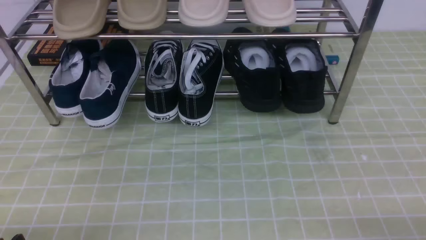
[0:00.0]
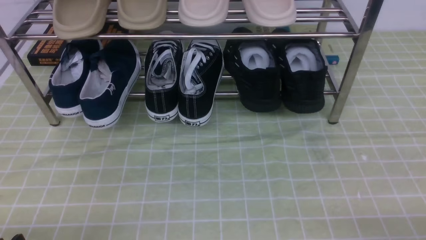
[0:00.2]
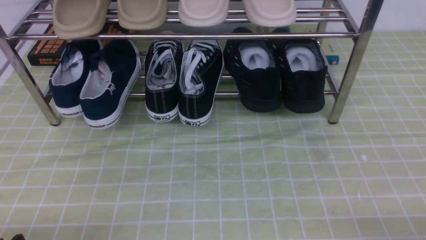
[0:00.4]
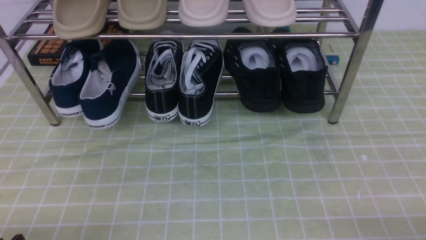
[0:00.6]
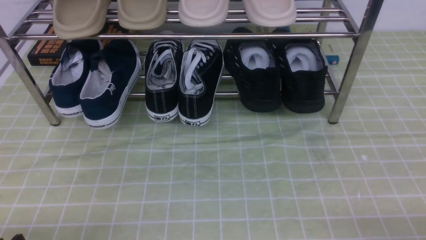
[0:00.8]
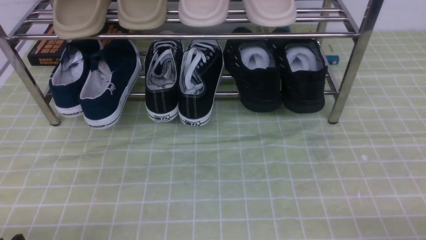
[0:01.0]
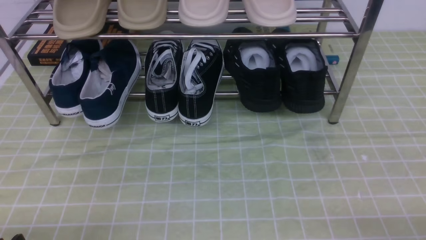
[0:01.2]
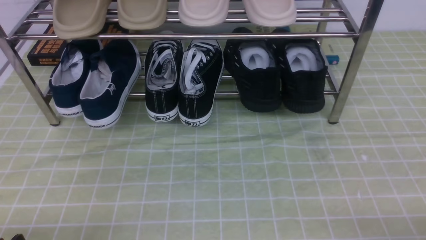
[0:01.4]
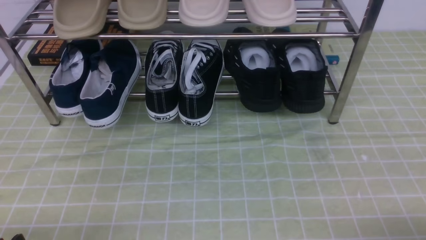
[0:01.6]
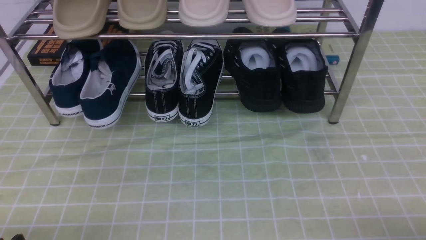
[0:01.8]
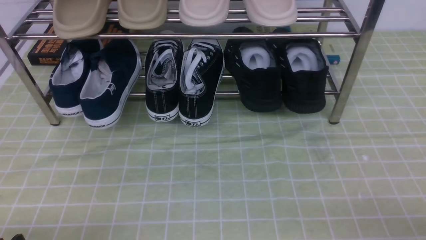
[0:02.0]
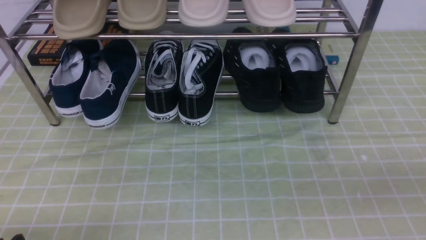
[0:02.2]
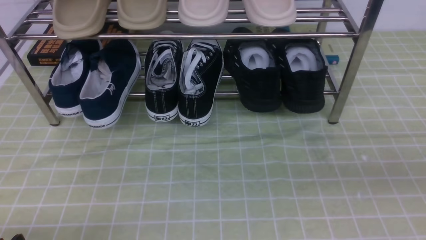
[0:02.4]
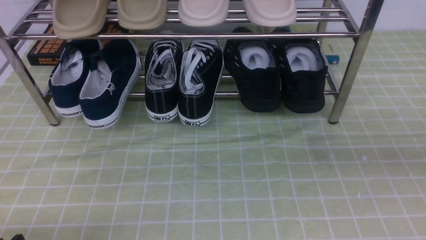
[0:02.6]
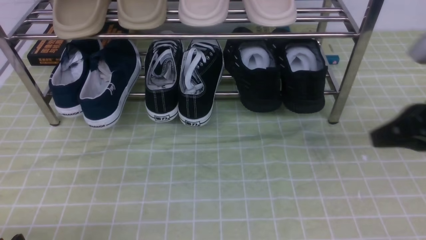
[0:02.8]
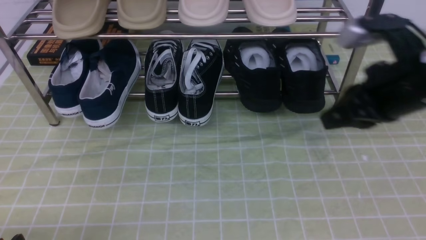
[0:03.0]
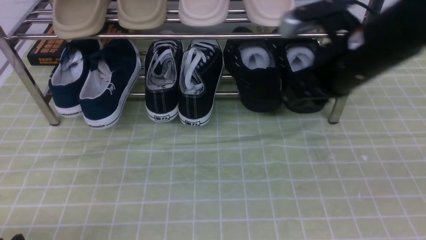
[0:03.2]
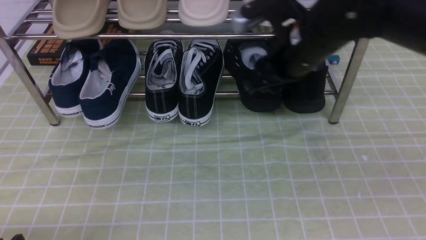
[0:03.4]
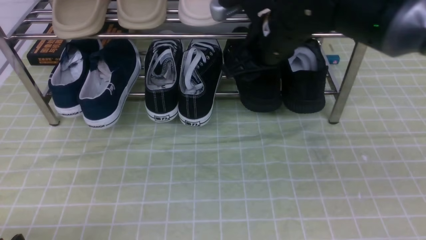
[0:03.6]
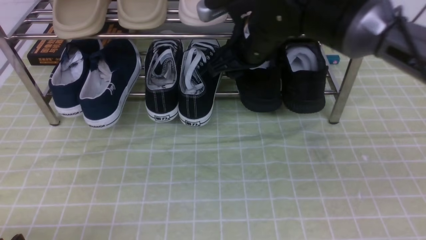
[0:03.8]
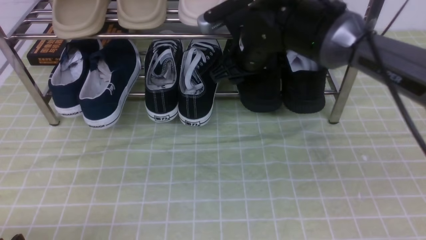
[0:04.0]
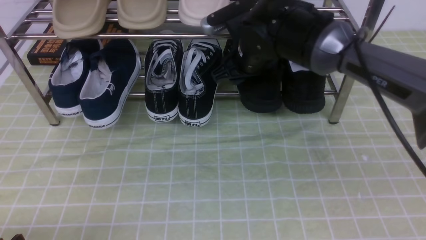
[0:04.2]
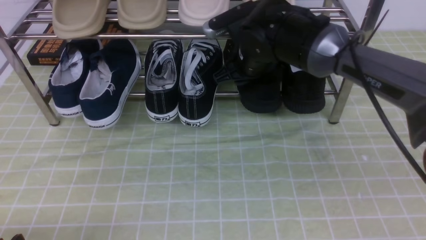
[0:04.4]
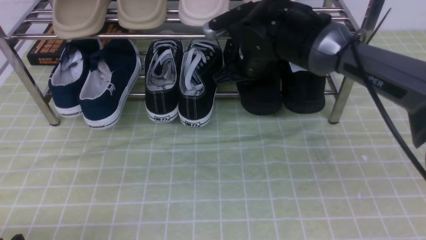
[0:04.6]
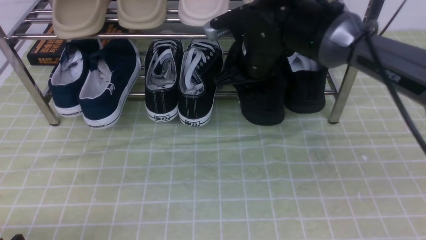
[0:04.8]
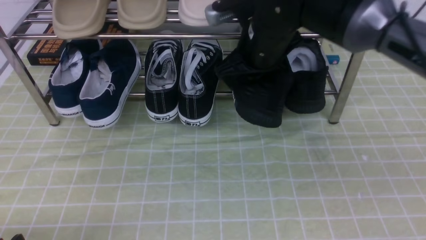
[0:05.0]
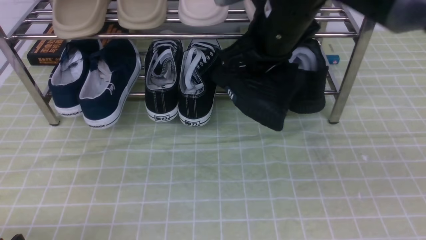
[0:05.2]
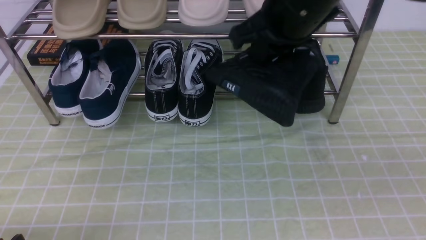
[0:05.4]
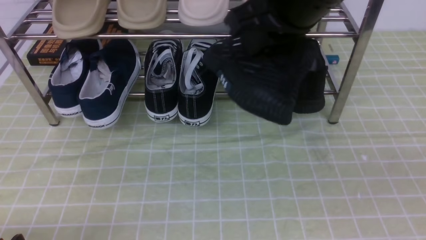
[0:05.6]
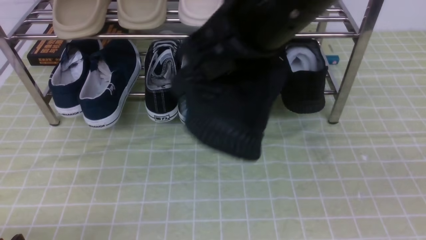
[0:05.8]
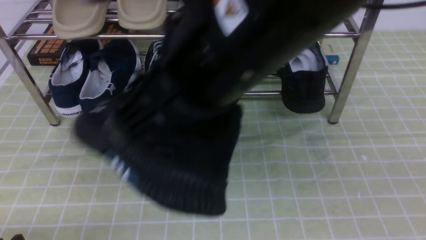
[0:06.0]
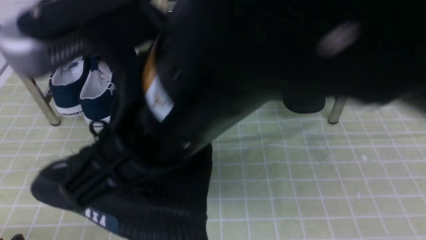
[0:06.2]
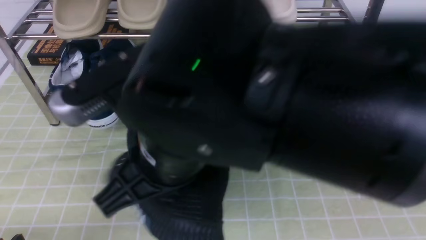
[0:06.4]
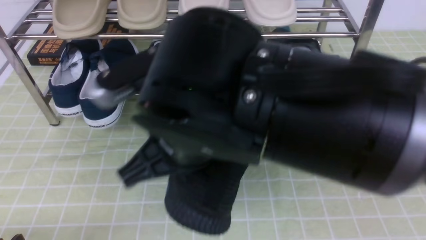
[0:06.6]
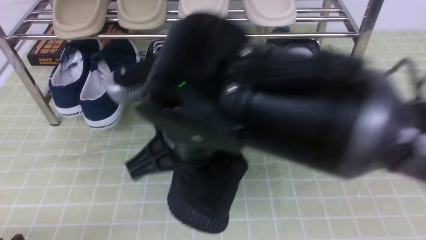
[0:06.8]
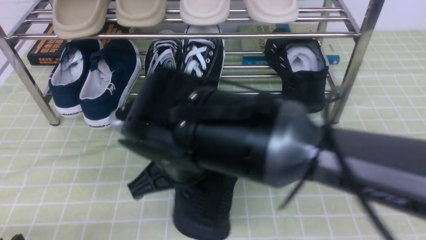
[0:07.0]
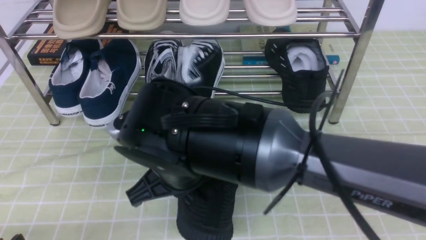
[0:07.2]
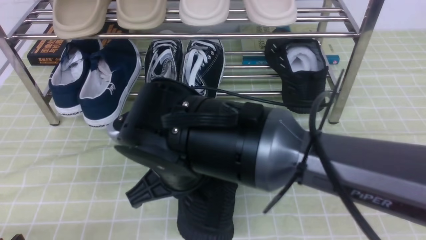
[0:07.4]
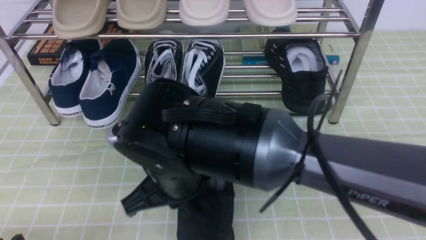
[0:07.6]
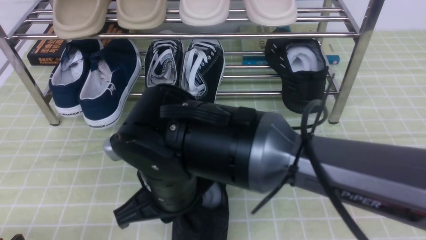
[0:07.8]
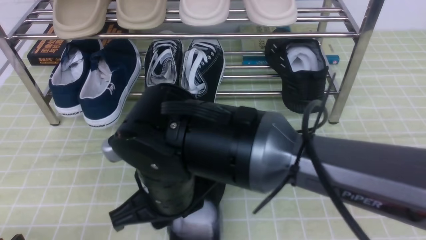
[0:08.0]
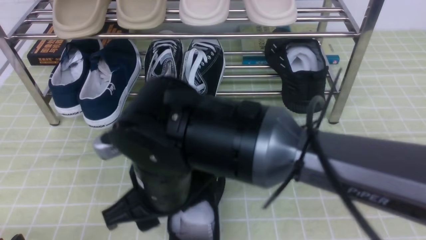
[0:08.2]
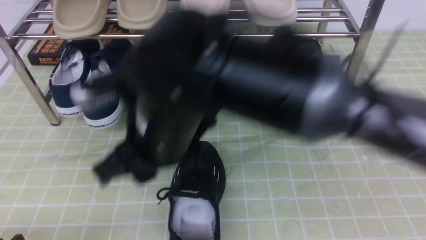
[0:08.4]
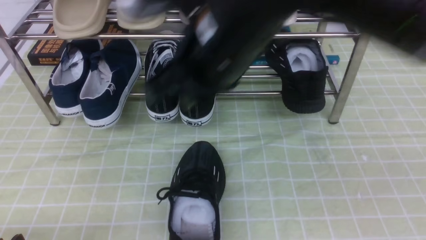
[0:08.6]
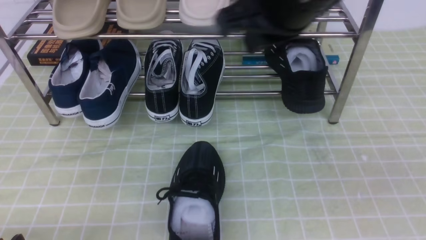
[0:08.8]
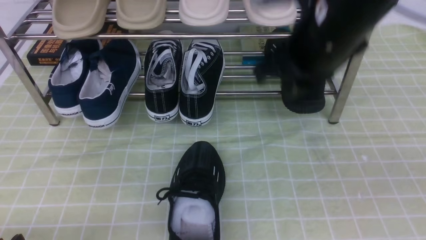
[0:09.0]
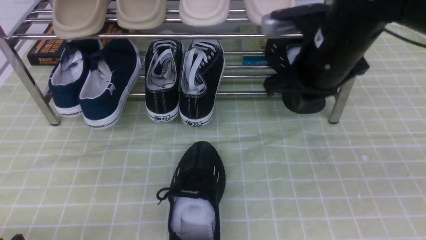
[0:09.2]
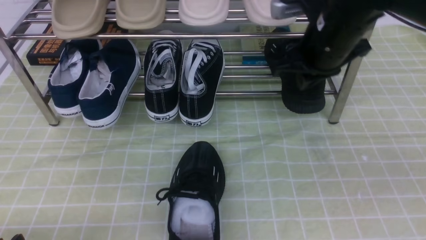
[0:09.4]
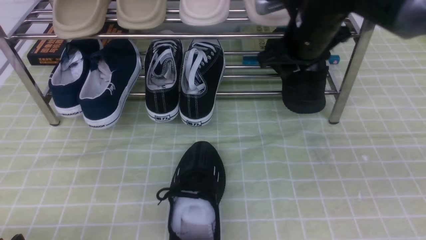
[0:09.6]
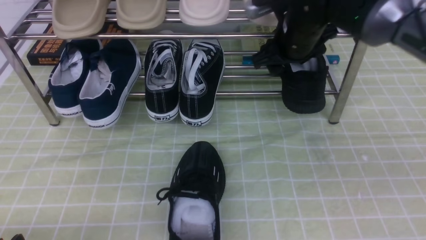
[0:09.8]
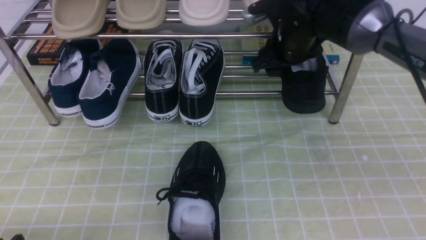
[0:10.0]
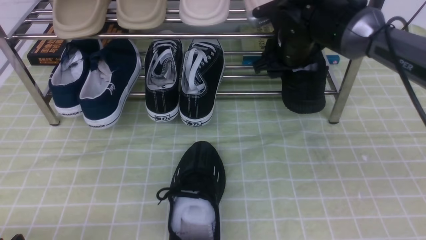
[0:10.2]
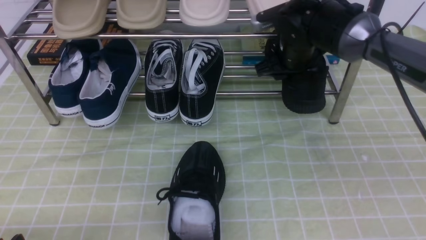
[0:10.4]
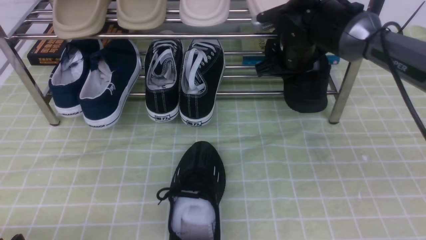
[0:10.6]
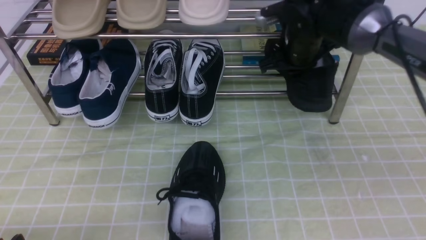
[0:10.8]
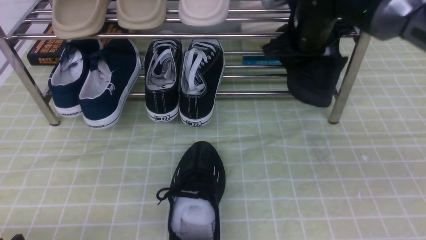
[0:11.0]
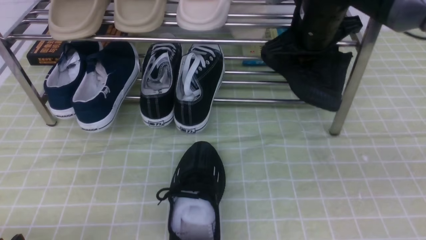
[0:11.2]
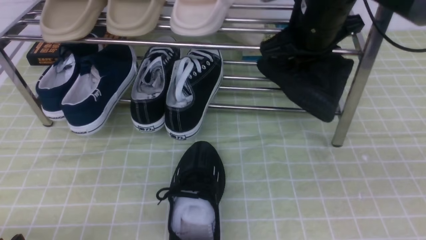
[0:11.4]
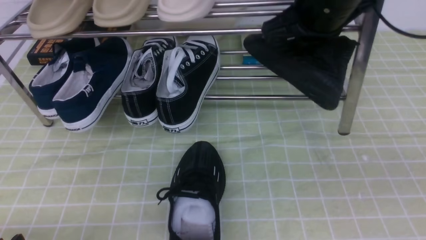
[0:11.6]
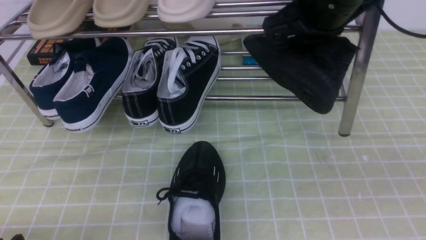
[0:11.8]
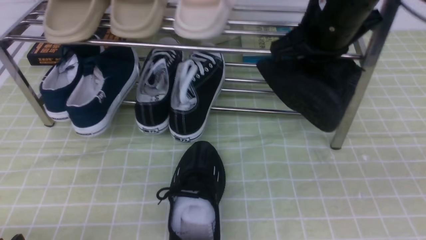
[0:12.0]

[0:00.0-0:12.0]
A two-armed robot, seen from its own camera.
Step, 0:00.0 to 0:05.0: use the right arm to clamp a shoe on the right side of the shoe rack.
Step, 0:05.2 to 0:08.2: use the right arm to take out the clamped shoe from the shoe rack and put it down.
Step, 0:08.4 to 0:10.8: use the right arm to clamp a shoe on the right side of the shoe rack.
0:01.6 to 0:03.0: The right gripper travels forward, upward and to the left by some 30 cm.
0:03.0 to 0:04.4: The right gripper travels forward, to the left and downward by about 20 cm, and opens, then closes again.
0:04.4 to 0:06.0: The right gripper shifts approximately 30 cm backward and upward, and closes up.
0:06.0 to 0:07.6: The right gripper travels downward by roughly 20 cm.
0:07.6 to 0:09.0: The right gripper moves to the right, upward and forward, some 20 cm, and opens, then closes again.
0:09.0 to 0:10.4: The right gripper moves forward and downward, approximately 20 cm, and opens up.
0:10.4 to 0:12.0: The right gripper moves upward and backward, some 15 cm, and closes its fingers.

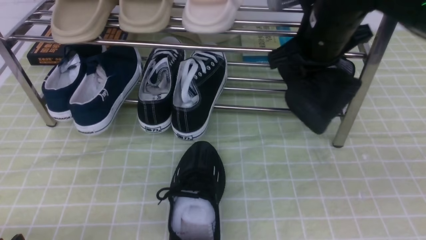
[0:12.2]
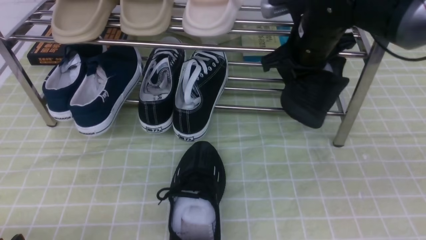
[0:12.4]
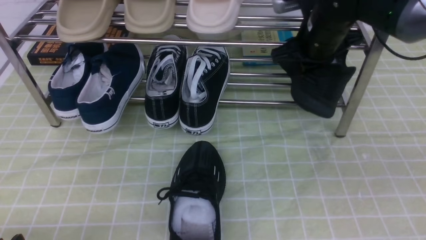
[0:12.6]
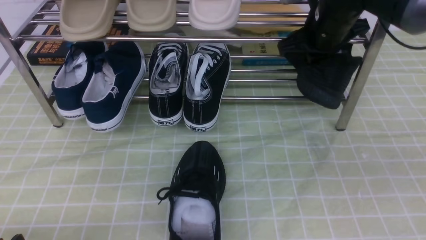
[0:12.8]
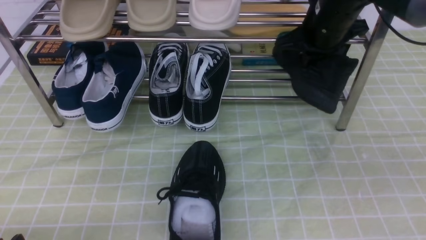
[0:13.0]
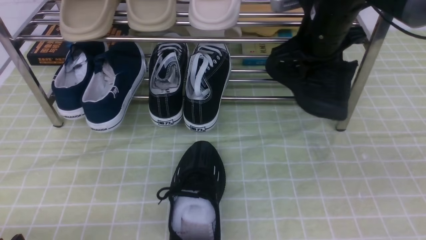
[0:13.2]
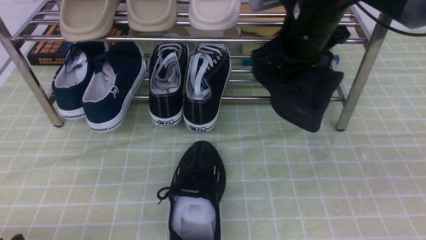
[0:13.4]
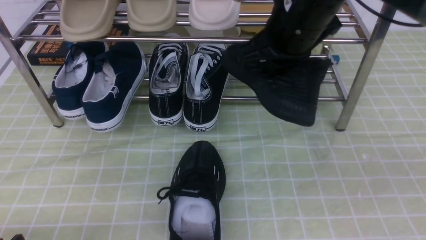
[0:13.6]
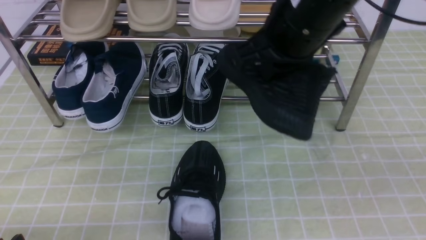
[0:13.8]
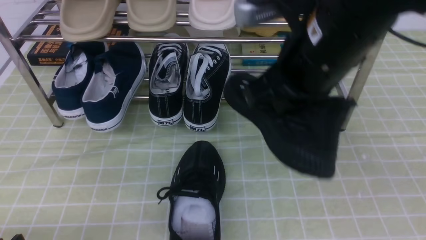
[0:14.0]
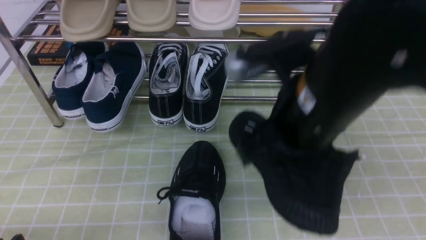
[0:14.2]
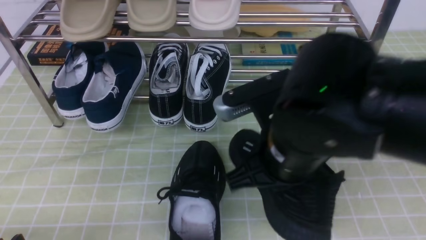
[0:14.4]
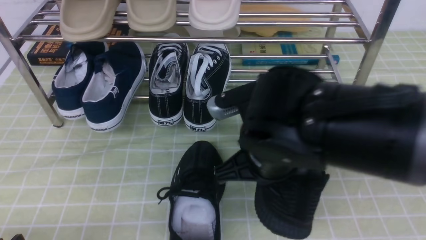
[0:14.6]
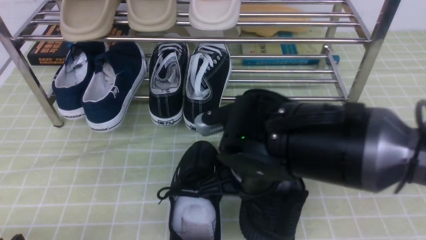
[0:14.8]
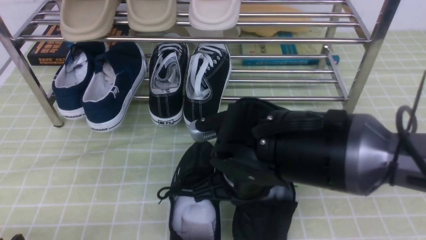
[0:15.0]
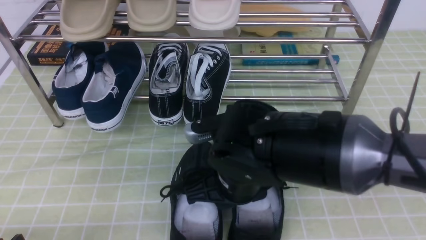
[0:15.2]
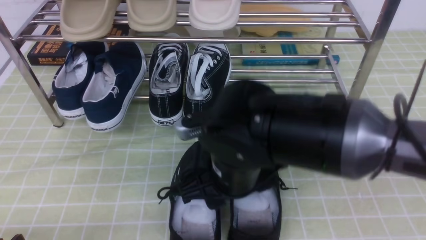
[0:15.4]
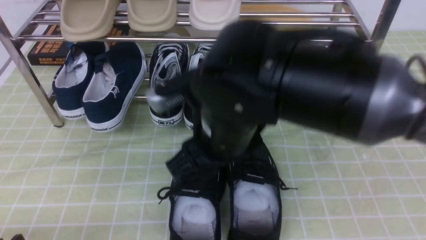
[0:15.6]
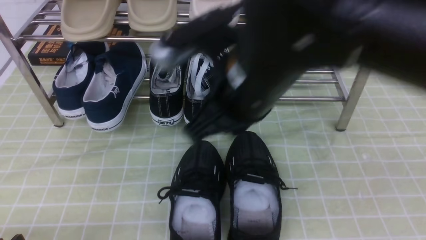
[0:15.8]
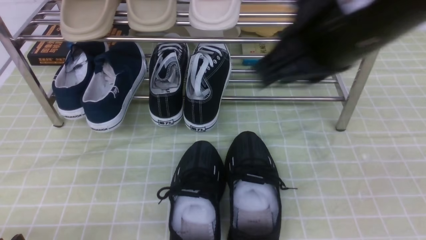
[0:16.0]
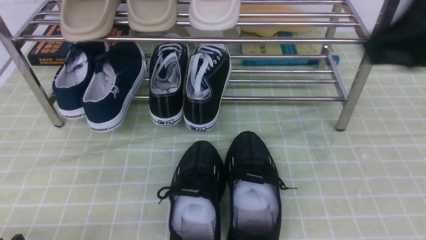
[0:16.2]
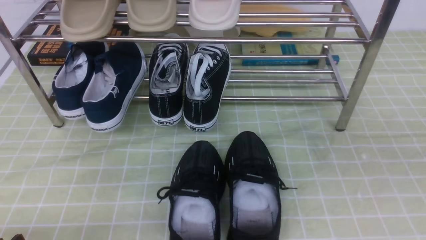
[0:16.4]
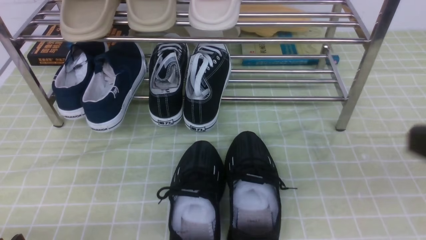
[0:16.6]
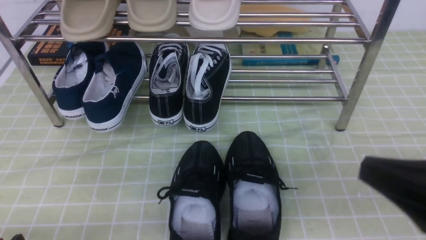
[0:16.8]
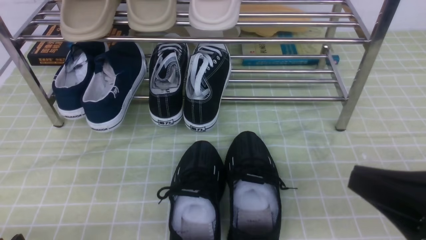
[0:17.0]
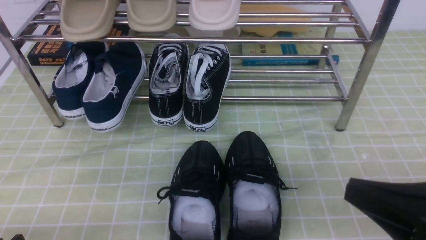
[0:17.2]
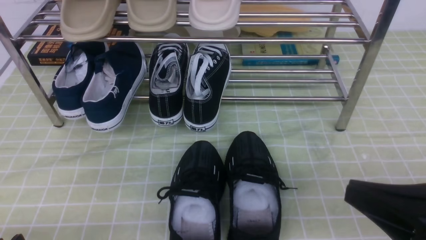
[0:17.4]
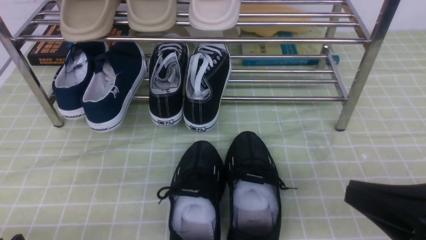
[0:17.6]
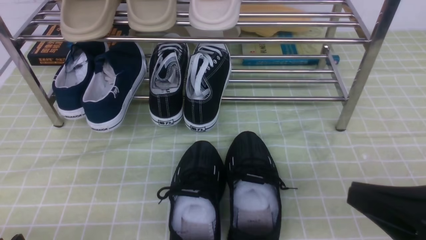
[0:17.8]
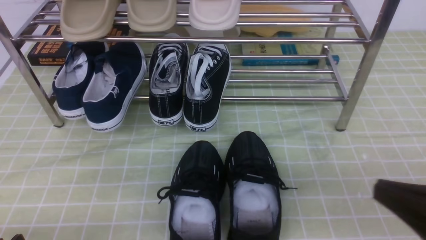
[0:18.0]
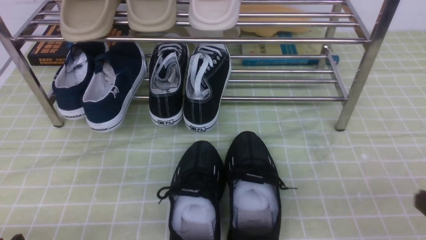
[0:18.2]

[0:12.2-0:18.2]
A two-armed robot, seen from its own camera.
Step, 0:12.2 to 0:15.4: use the right arm to take out the clamped shoe from the shoe rack and put it down.
0:12.2 to 0:13.8: The right gripper is displaced backward by roughly 10 cm.
0:13.8 to 0:15.2: The right gripper travels downward, to the left and backward by about 20 cm, and opens its fingers.
0:15.2 to 0:16.6: The right gripper is displaced to the right, upward and backward by roughly 30 cm, and closes its fingers.
0:16.6 to 0:18.2: The right gripper heads downward and to the right, covering roughly 15 cm.
